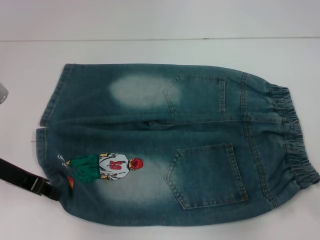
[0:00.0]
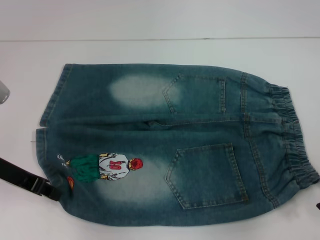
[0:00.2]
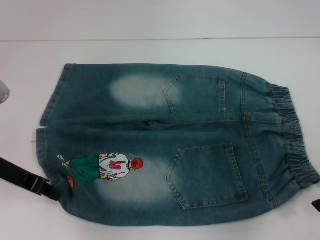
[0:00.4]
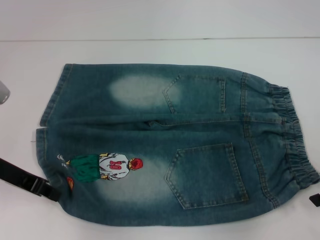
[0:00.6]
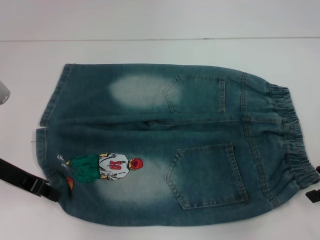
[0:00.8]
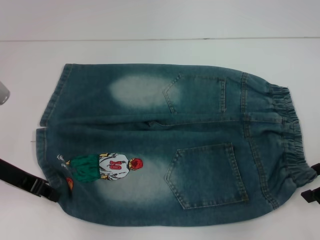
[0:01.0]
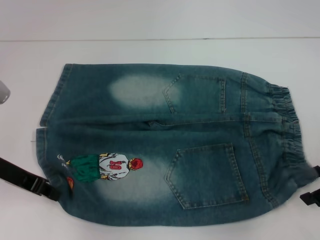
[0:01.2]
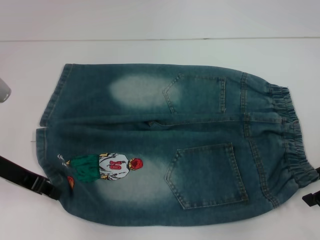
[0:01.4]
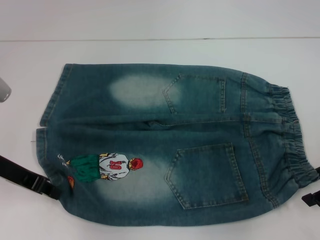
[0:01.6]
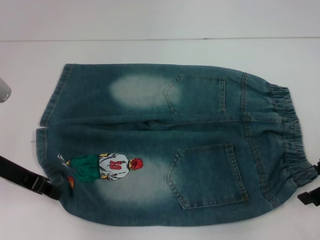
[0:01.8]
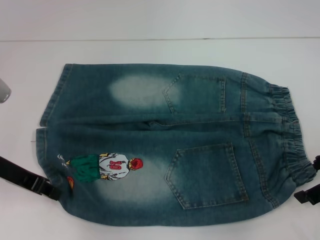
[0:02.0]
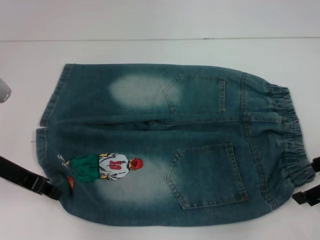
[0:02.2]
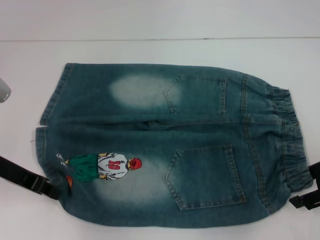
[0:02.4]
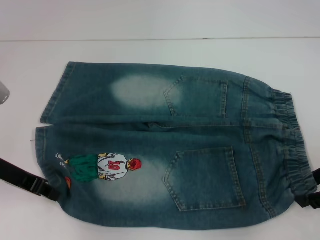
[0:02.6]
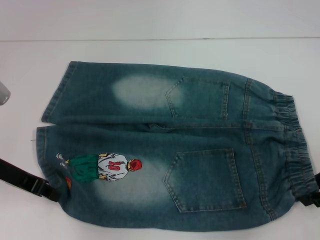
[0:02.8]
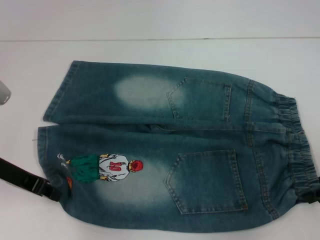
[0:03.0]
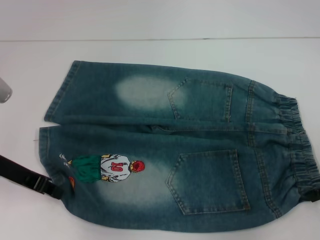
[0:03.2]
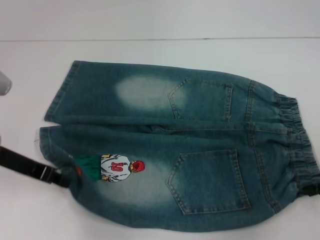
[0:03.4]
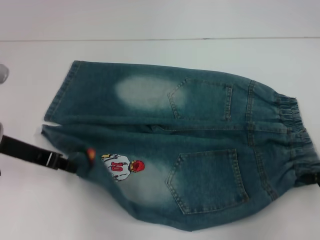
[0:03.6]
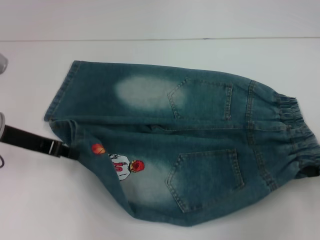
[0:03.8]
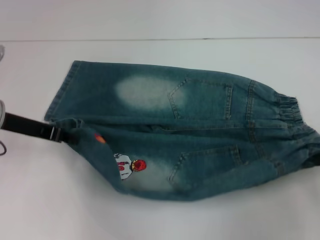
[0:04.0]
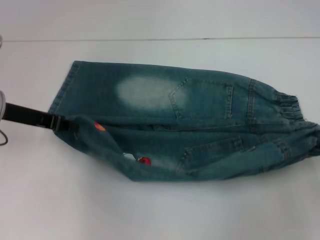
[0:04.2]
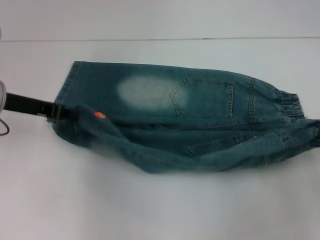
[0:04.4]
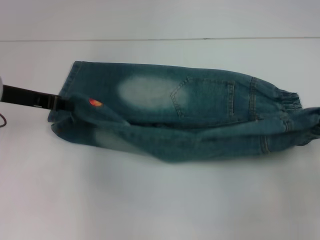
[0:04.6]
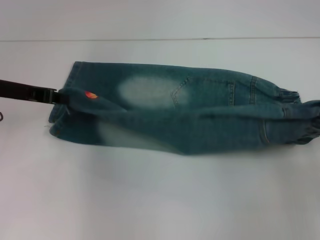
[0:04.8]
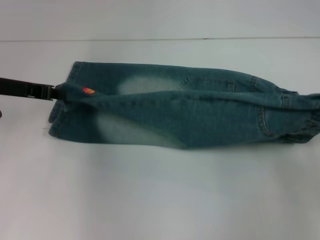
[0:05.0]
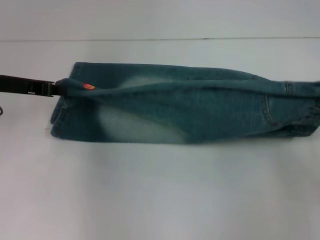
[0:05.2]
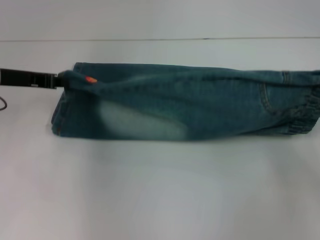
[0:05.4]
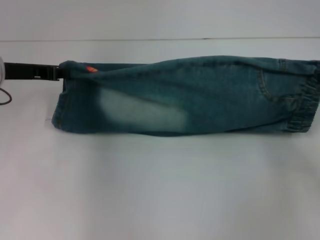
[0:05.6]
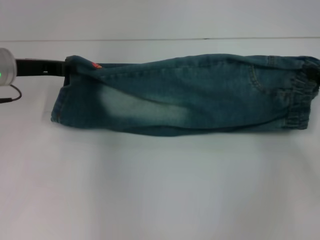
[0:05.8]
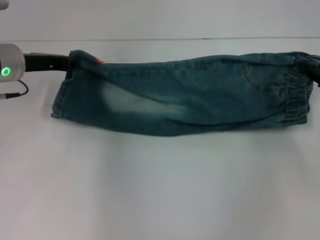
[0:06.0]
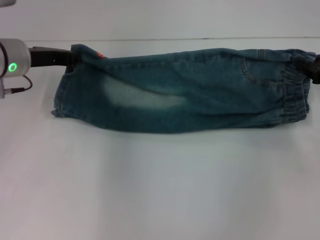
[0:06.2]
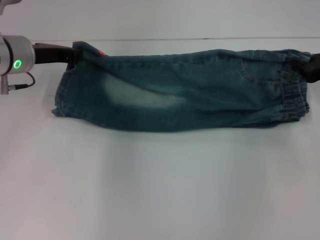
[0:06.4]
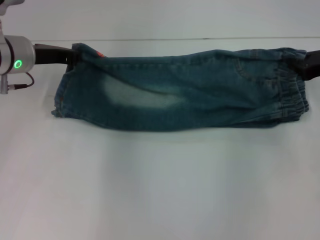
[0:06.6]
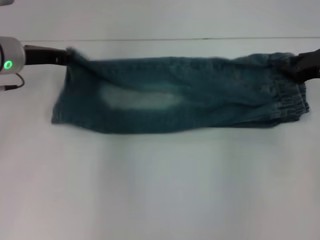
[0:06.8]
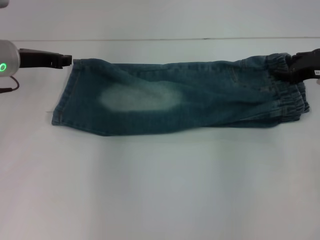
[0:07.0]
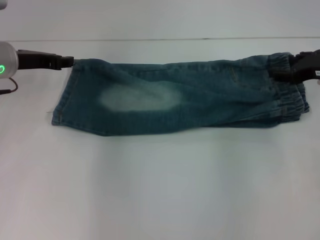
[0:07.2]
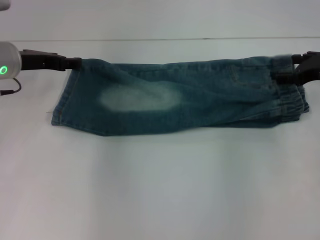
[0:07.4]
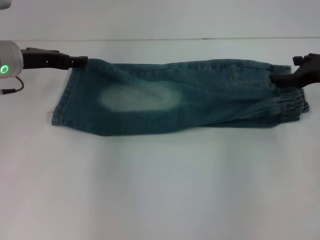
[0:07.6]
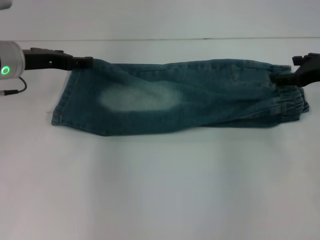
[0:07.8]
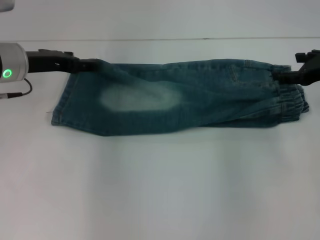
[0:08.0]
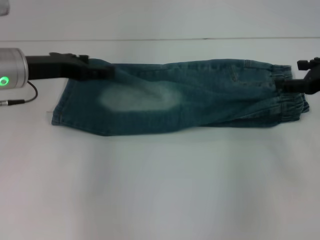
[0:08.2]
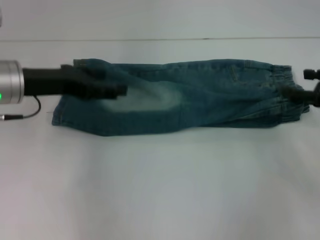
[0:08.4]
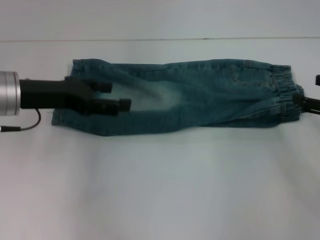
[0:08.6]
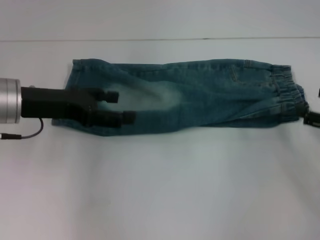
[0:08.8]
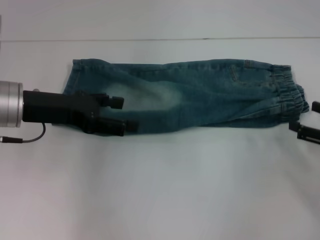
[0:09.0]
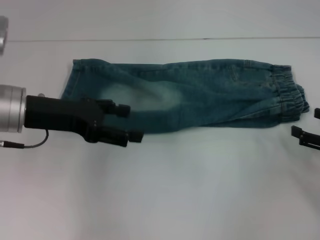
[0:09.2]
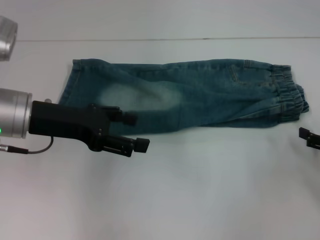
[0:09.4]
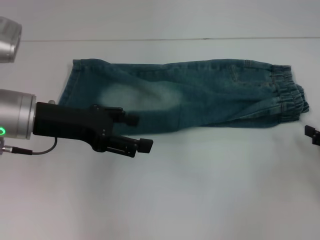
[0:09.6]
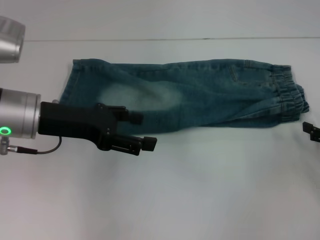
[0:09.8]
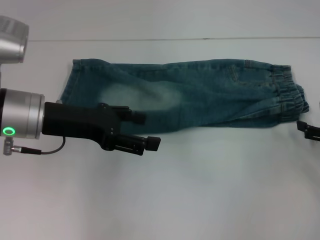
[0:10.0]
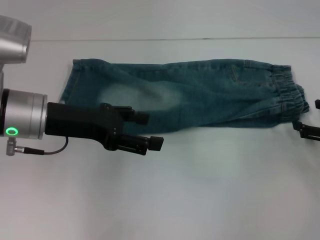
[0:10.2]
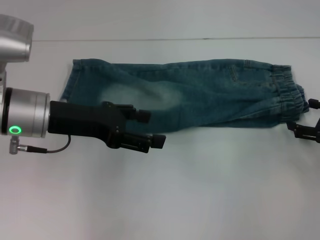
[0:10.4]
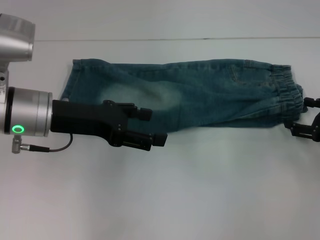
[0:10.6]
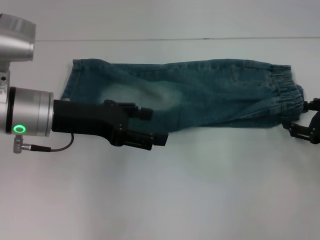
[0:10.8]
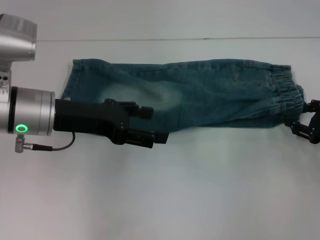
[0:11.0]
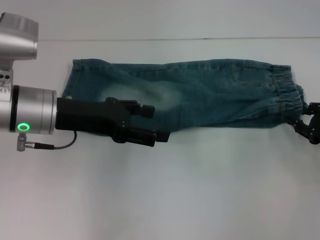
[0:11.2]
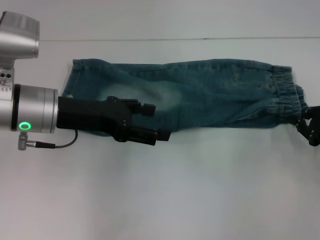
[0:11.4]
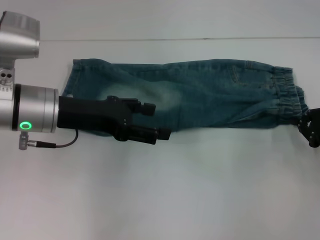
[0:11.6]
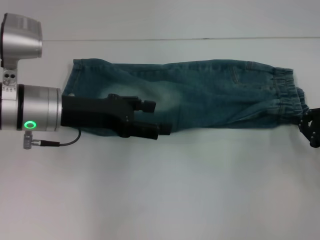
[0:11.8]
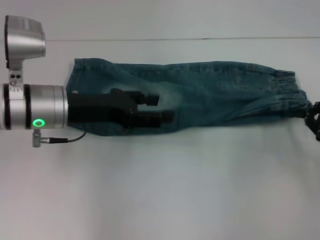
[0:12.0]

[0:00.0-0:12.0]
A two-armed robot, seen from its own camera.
Step, 0:00.0 to 0:03.0: Hold the lower right waistband with your right hand.
Step, 0:03.2 to 0:07.4: Fold upward with your right hand.
Step, 0:07.6 to 0:11.4: Grab the waistband with your right hand.
0:00.0 to 0:01.6: The grippers make only small movements.
0:01.6 to 0:03.0: The right gripper closes.
0:03.0 to 0:04.4: The right gripper shifts some 5 cm to the right. The left gripper shifts some 5 cm forward.
0:04.4 to 0:06.0: The right gripper is displaced forward by approximately 10 cm.
0:06.0 to 0:07.6: The left gripper opens. The right gripper opens its fingers.
0:07.6 to 0:09.0: The right gripper goes some 15 cm backward and downward; the left gripper goes some 10 cm backward.
0:09.0 to 0:10.4: The grippers stay close to where they were, moving slightly.
0:10.4 to 0:12.0: The right gripper closes its fingers.

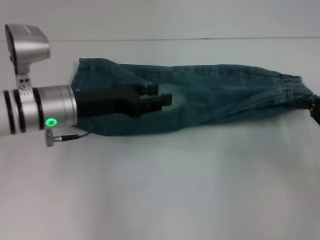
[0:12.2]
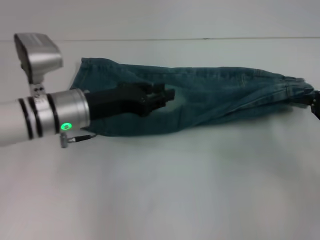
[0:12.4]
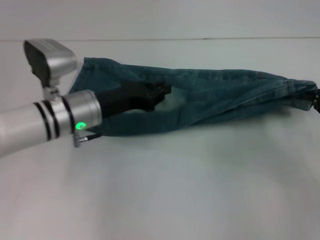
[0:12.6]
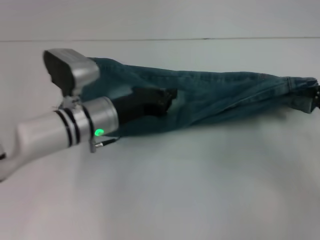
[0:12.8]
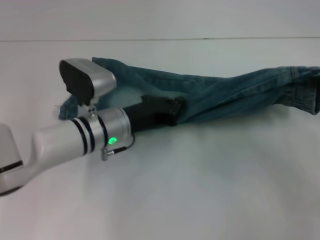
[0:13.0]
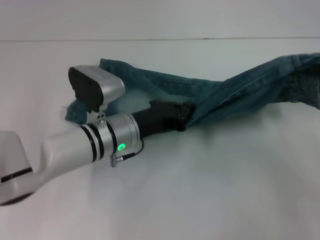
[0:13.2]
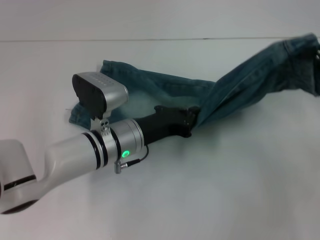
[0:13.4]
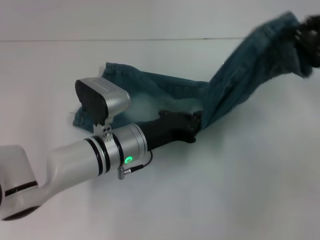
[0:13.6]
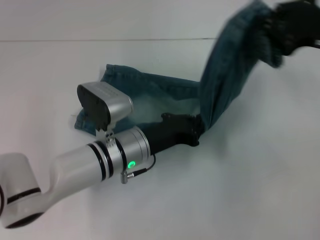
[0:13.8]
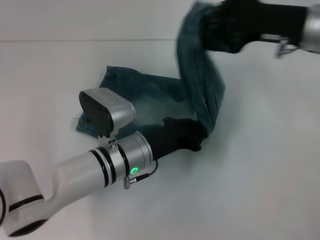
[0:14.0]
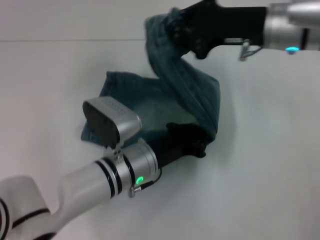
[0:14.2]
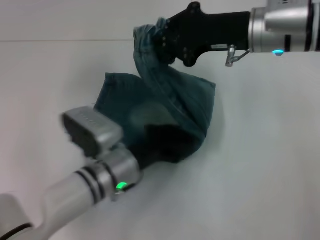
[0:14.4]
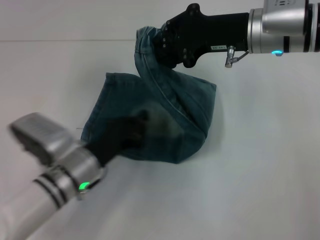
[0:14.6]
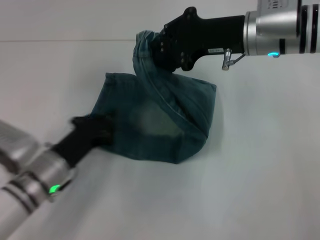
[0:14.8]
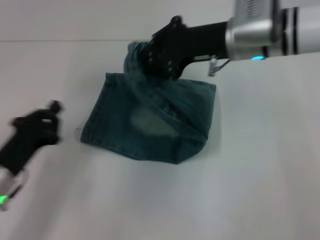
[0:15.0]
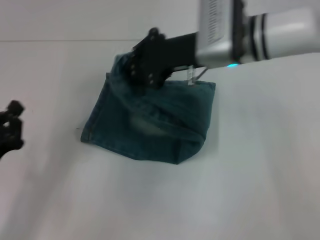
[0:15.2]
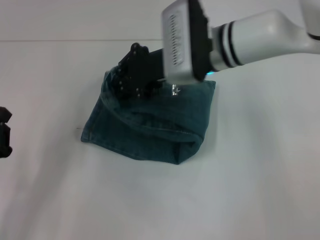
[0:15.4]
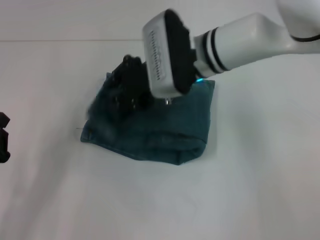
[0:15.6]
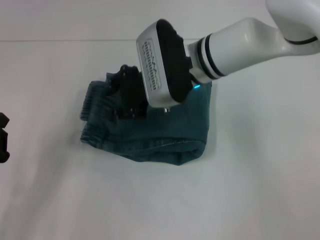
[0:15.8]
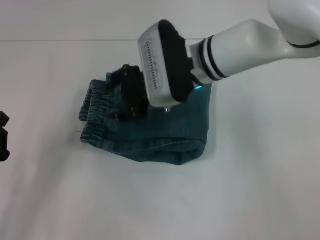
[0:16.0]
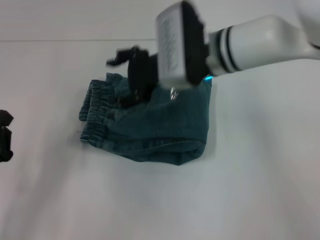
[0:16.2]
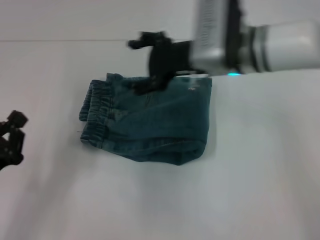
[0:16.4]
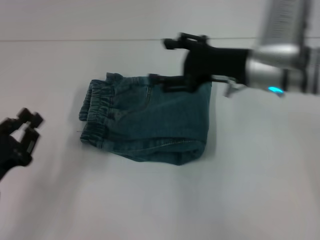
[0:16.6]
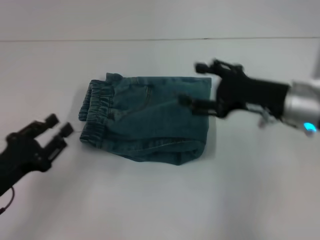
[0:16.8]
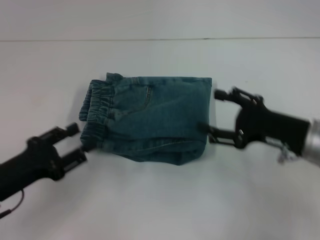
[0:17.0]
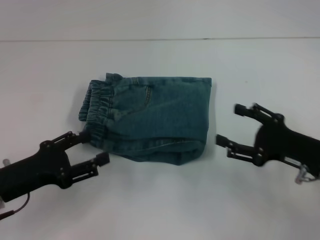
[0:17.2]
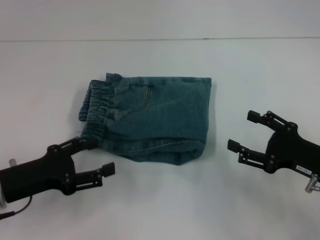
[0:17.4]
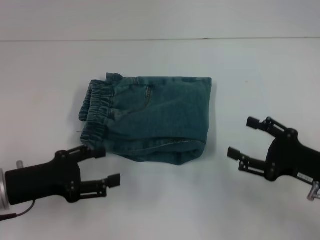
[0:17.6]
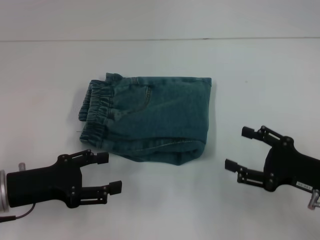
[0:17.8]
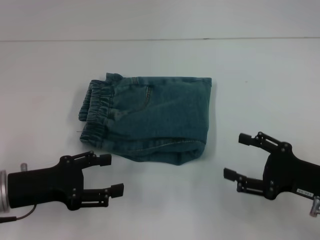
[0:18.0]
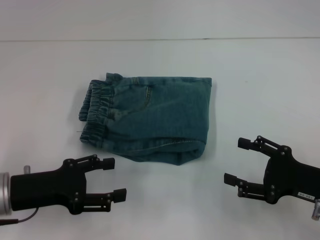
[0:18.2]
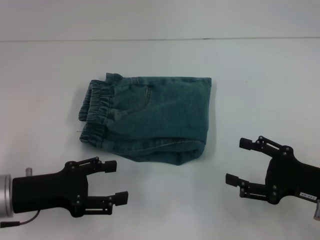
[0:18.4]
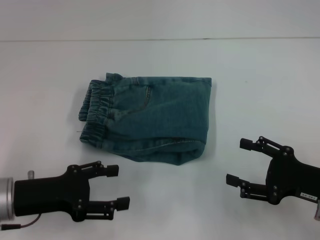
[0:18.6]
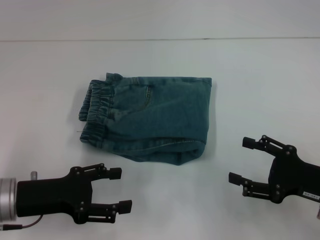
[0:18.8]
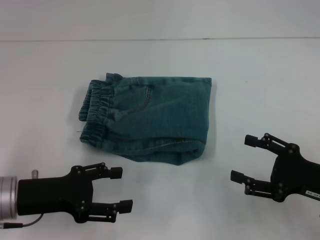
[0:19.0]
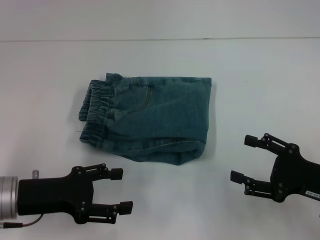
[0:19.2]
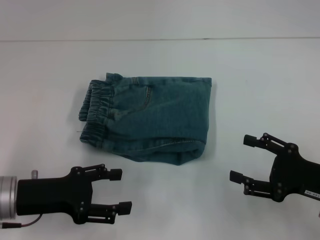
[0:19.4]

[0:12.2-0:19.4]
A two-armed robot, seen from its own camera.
Step, 0:12.2 to 0:14.2: Press the middle of the pants with your left hand.
Step, 0:14.6 to 0:16.0: Fold to the left with your right hand.
0:12.2 to 0:13.6: The left gripper heads to the right and downward, covering approximately 10 cm, and closes its fingers. Meanwhile the right gripper shifts some 10 cm upward.
0:13.6 to 0:15.0: The right gripper shifts approximately 20 cm to the left. Meanwhile the left gripper goes about 20 cm to the left and backward.
0:15.0 to 0:16.6: The right gripper moves backward, some 5 cm, reaches some 10 cm to the left, then returns, and opens its fingers, while the left gripper changes place by about 5 cm.
0:16.6 to 0:18.0: The right gripper moves backward, to the right and downward, about 20 cm, while the left gripper changes place by some 5 cm, and opens up.
0:18.0 to 0:19.4: There are only small adjustments of the grippers.
